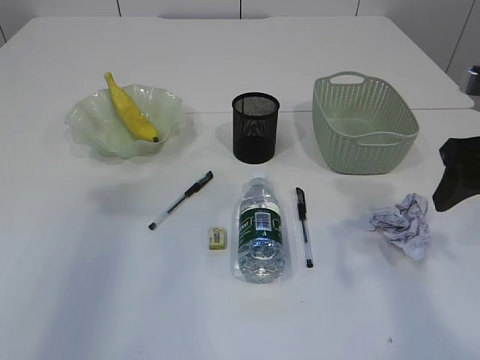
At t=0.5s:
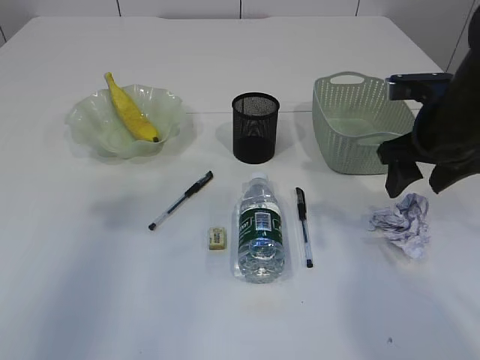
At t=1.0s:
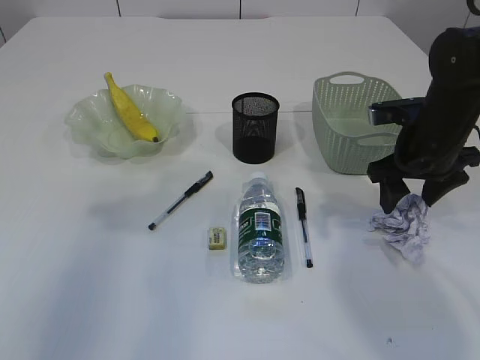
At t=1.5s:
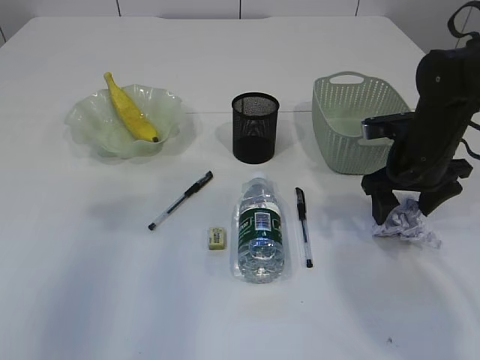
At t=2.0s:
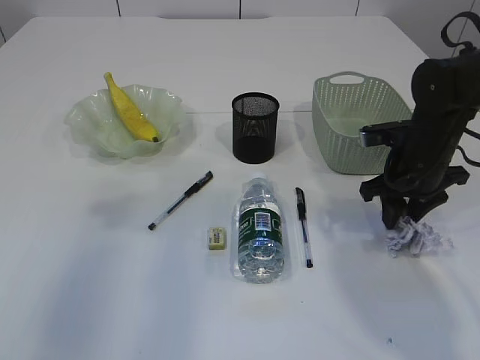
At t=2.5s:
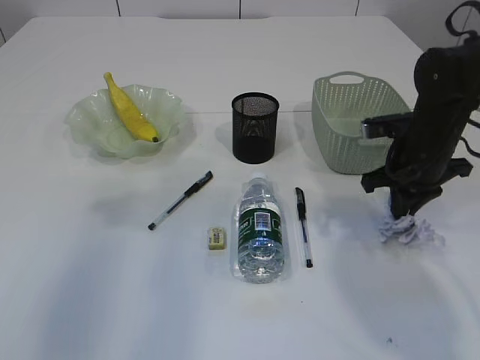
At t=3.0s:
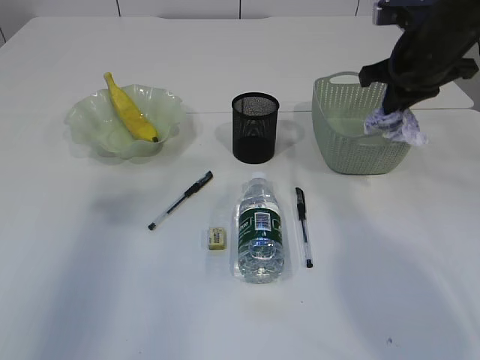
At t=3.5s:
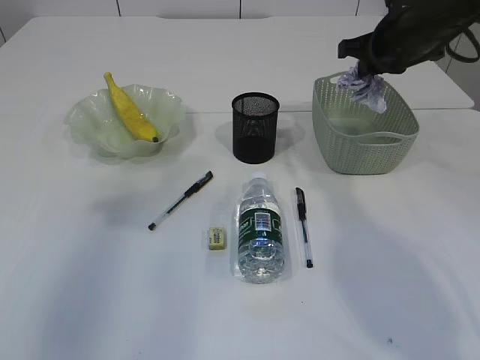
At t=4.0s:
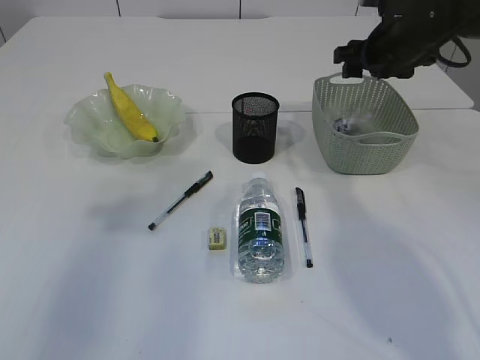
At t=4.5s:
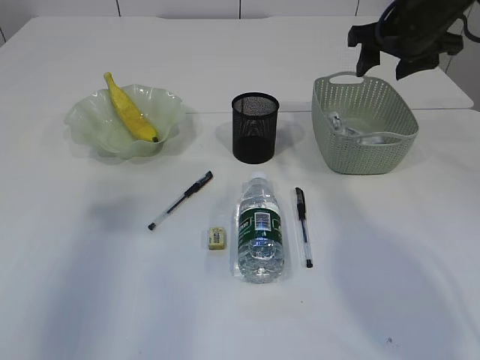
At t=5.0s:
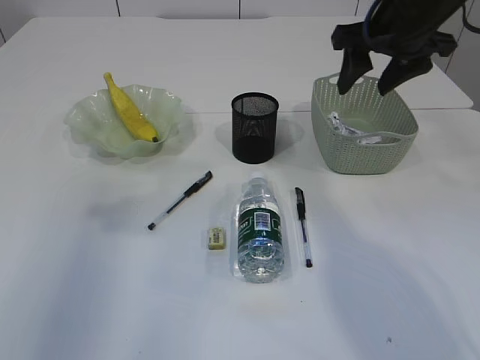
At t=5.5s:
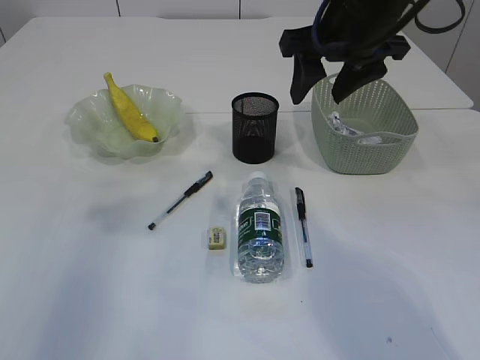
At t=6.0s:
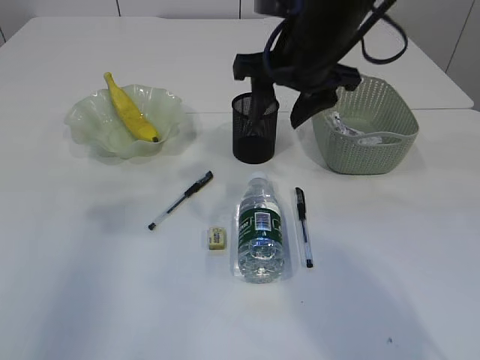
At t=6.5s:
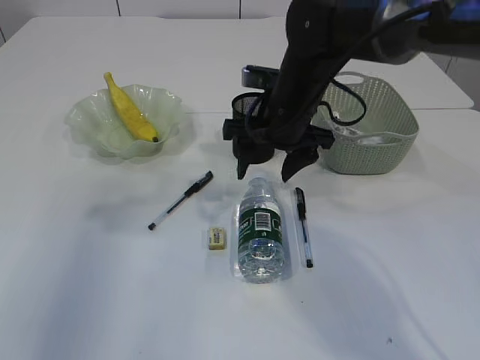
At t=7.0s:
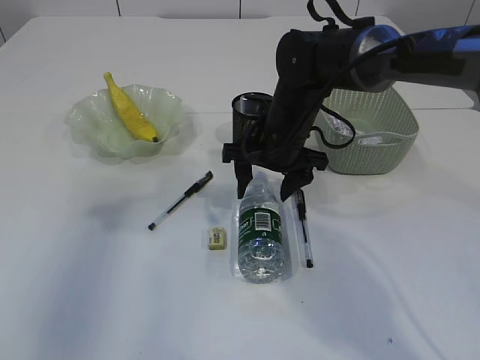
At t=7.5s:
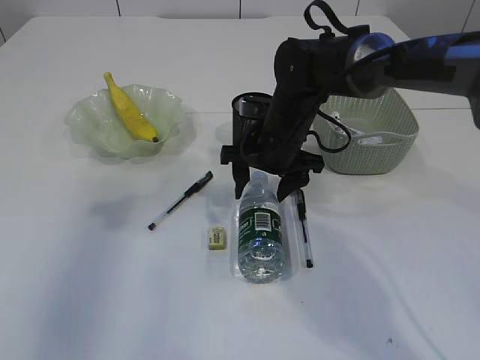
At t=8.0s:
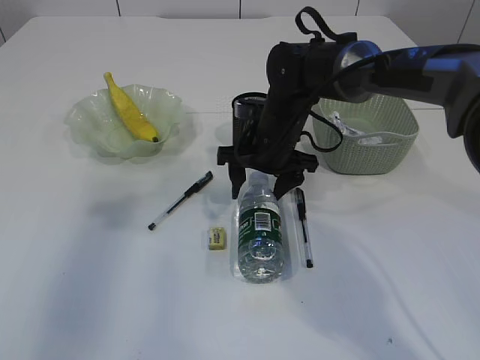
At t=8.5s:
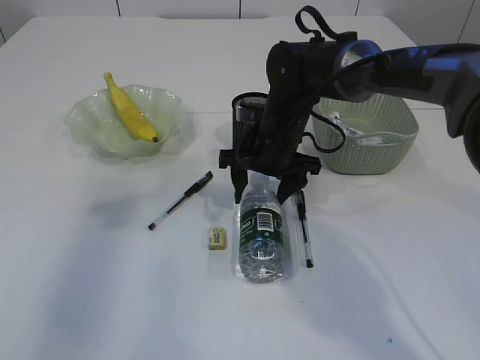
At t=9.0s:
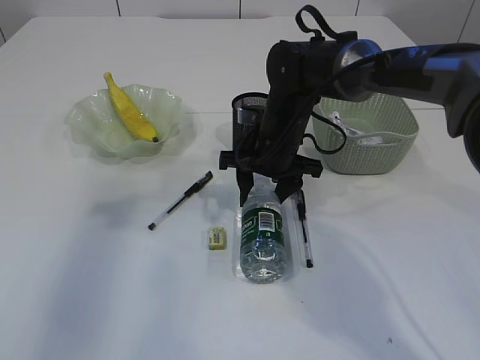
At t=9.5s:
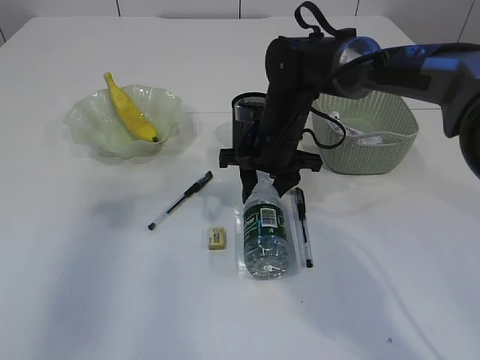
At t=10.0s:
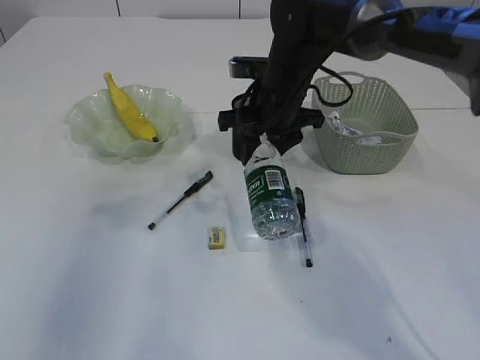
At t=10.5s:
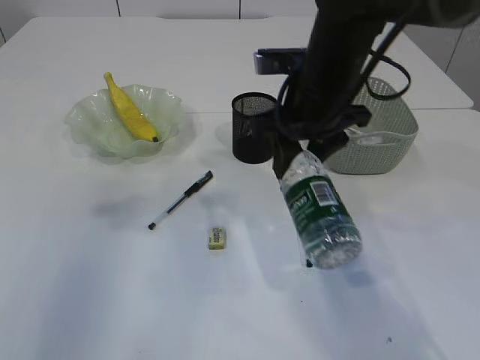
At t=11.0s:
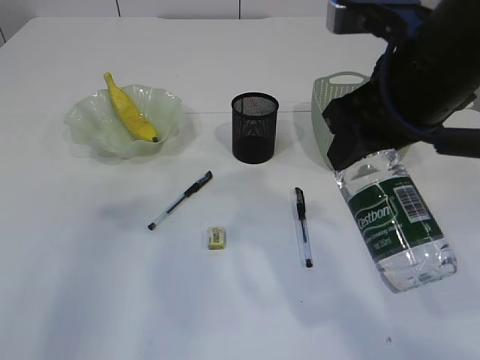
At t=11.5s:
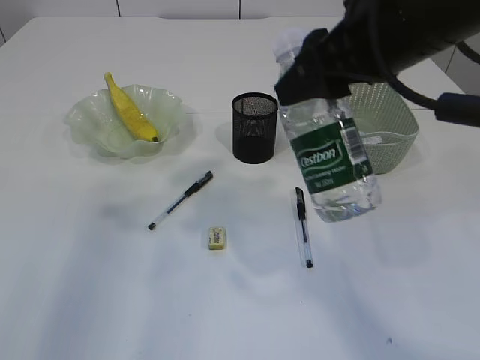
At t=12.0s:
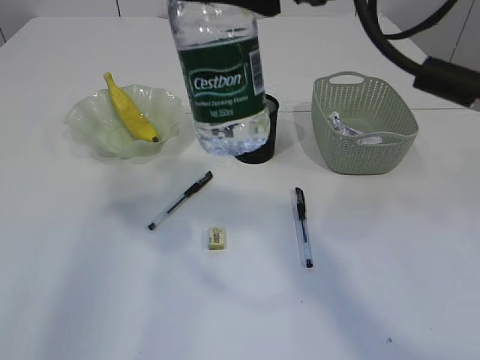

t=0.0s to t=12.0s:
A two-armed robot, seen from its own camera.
Step, t=0.0s to t=2.5s: Pick up the waste paper.
Step, t=3.0s to t=4.5s: Place the waste paper in the basket.
Step, t=5.0s to t=10.0s: Pick up the bottle with the right arm.
t=0.0s to t=2.0s: The right gripper shifts approximately 15 cm downward and forward, and closes its fingers.
t=2.0s to t=4.0s: The right gripper moves forward and upward, roughly 15 cm, and closes, then reopens.
t=4.0s to t=6.0s: The right gripper heads to the left and backward, covering roughly 15 cm.
t=6.0s to t=8.0s: The right gripper moves downward, roughly 15 cm.
t=8.0s to t=10.0s: The right gripper travels upward by some 5 cm, and closes up.
t=10.0s to t=12.0s: The right gripper is displaced upward and backward by some 25 cm.

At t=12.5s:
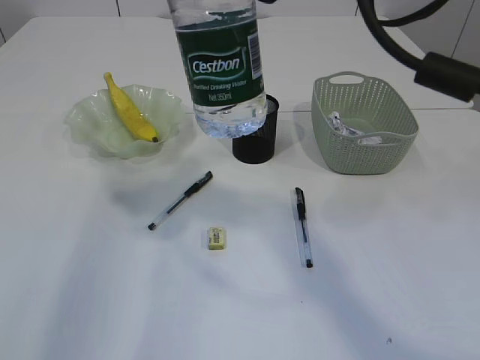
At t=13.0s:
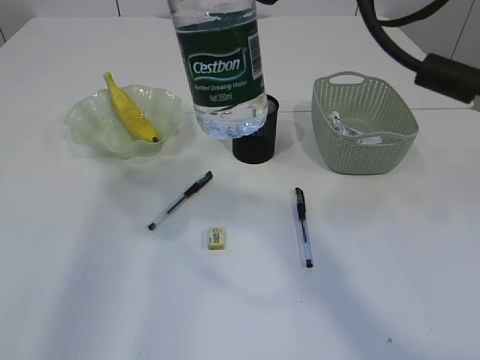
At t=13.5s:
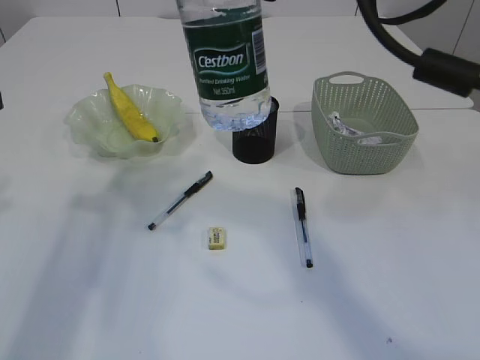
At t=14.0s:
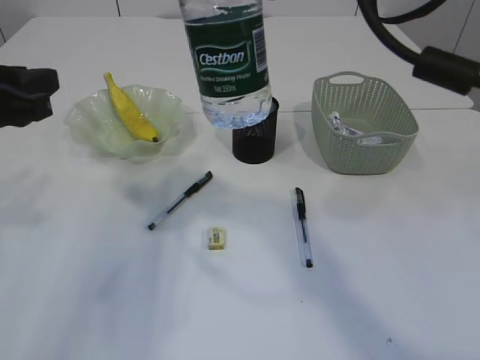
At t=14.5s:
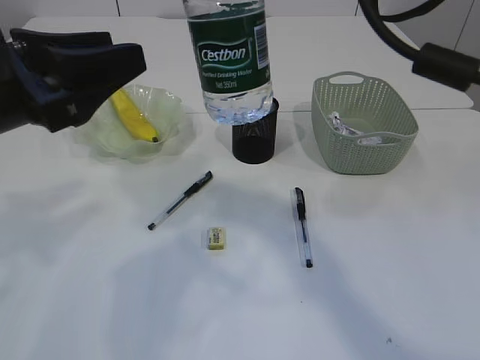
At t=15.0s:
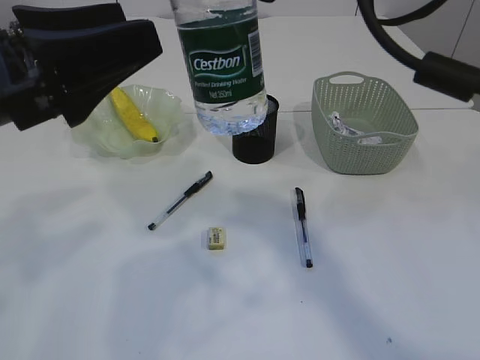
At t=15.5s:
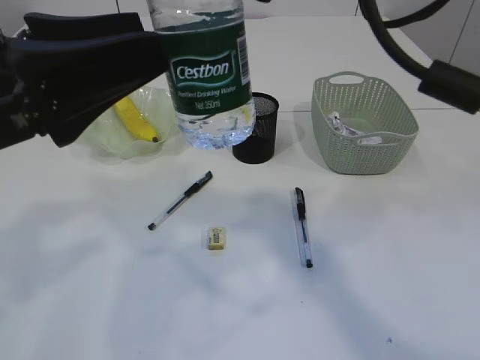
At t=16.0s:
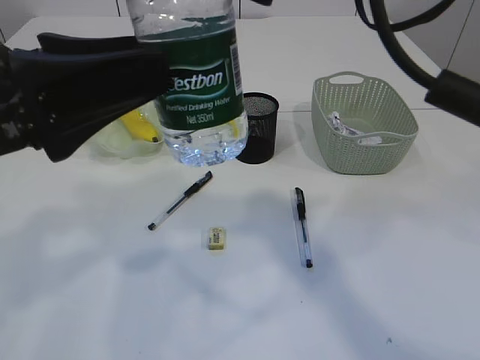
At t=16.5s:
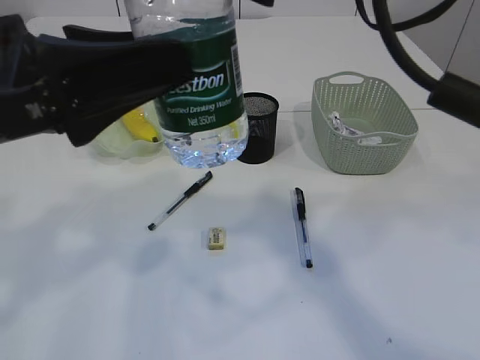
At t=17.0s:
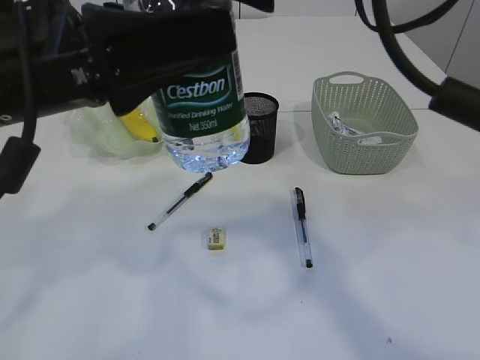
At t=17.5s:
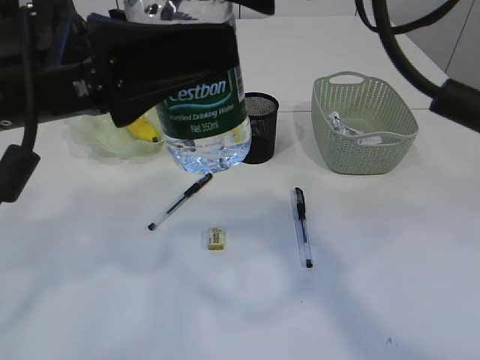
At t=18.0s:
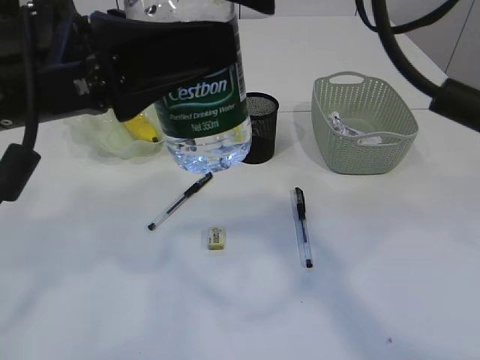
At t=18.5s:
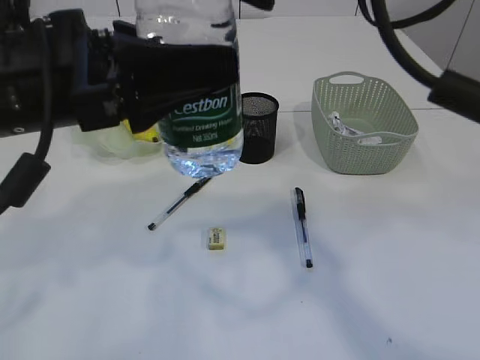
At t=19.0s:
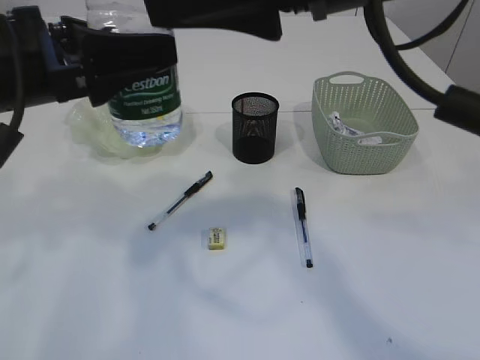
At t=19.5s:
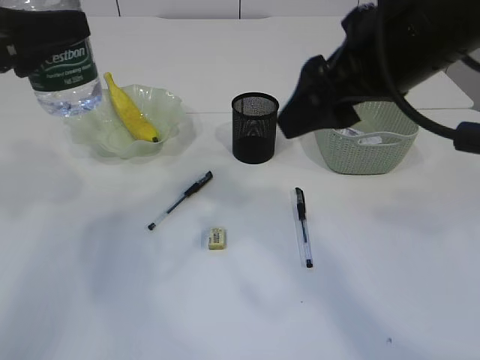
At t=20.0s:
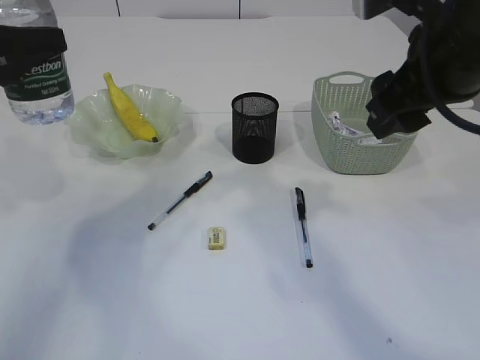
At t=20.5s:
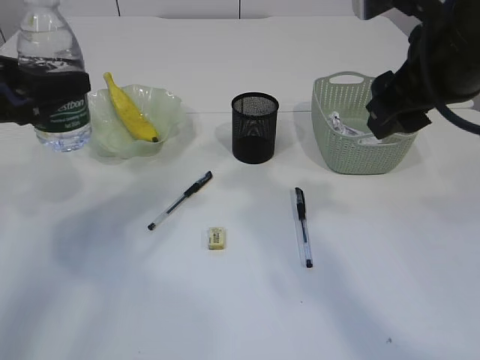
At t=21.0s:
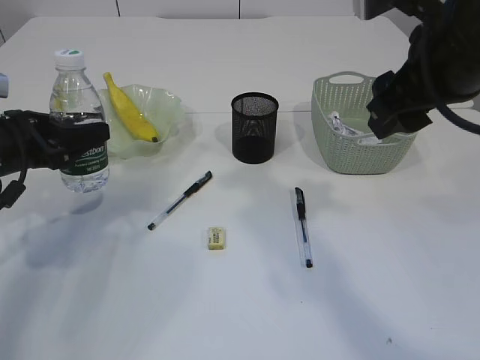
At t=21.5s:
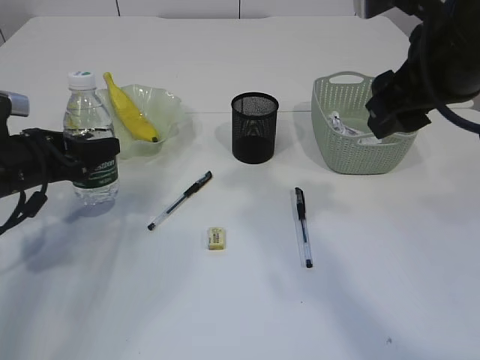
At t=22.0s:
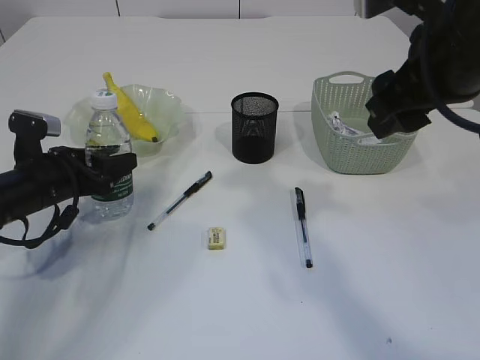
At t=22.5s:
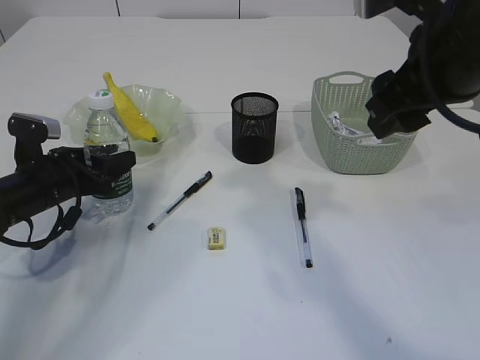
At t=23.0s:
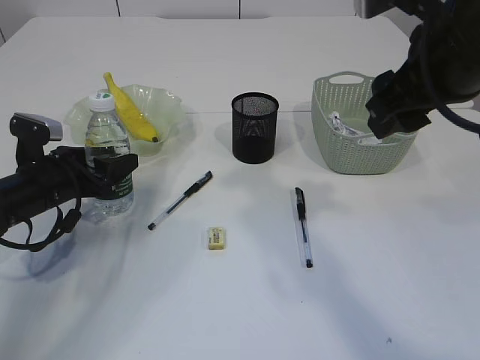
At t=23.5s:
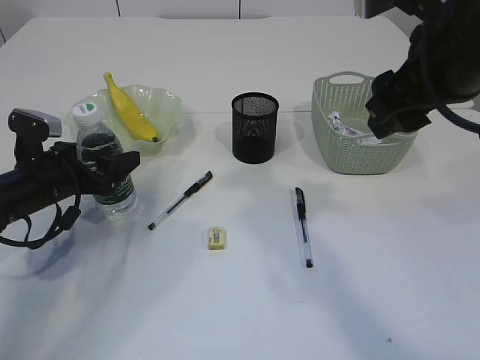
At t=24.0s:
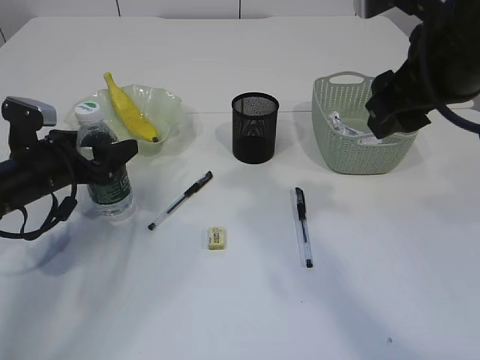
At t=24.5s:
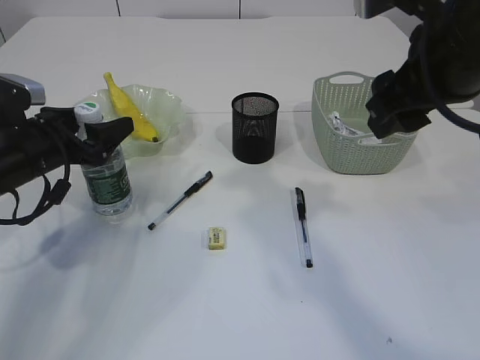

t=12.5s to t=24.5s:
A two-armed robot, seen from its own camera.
Step, t=12.5s to t=19.0s: transfer the bottle to the left arm.
t=12.5s to t=14.5s: The left gripper moves to the right and downward, roughly 10 cm.
t=14.5s to t=16.5s: The left gripper opens.
t=16.5s to t=18.5s: The grippers stay close to where they were, moving slightly.
t=18.5s to t=20.5s: The right gripper shifts roughly 10 cm to the right and downward; the left gripper goes about 20 cm to the left, forward and downward.
t=20.5s to t=22.5s: The left gripper is displaced downward by approximately 15 cm.
t=22.5s to t=24.5s: The grippers make only small movements.

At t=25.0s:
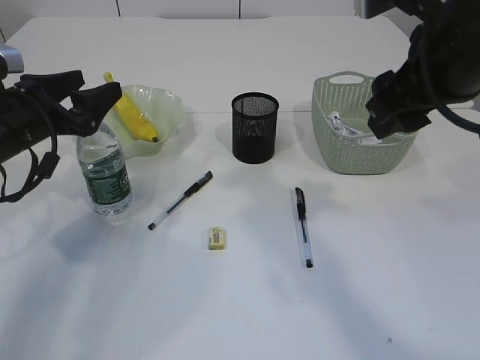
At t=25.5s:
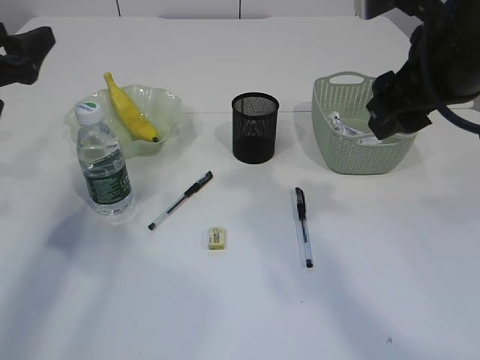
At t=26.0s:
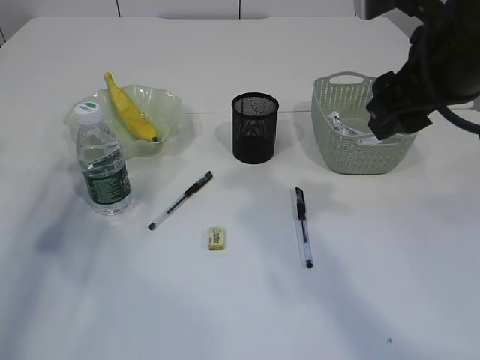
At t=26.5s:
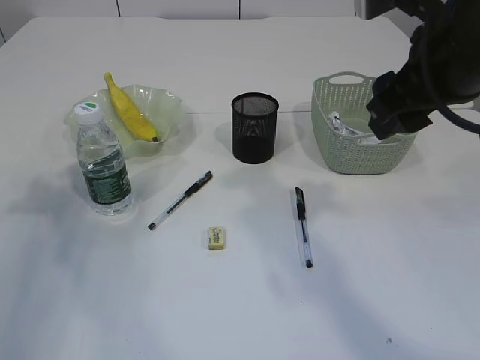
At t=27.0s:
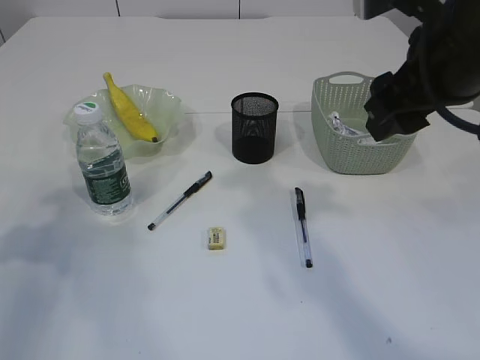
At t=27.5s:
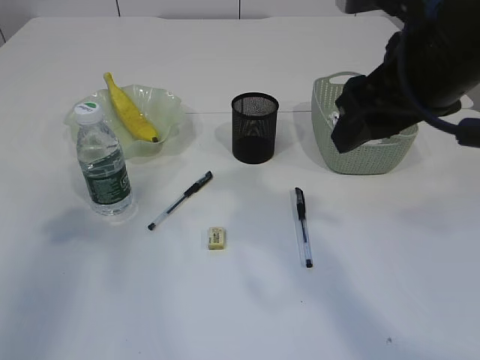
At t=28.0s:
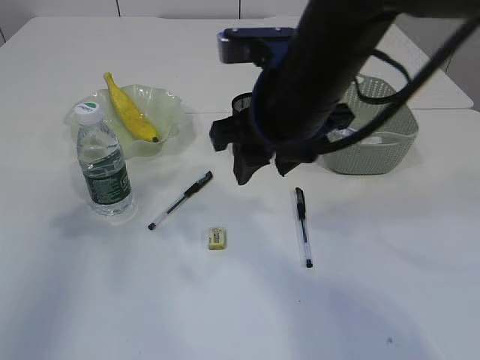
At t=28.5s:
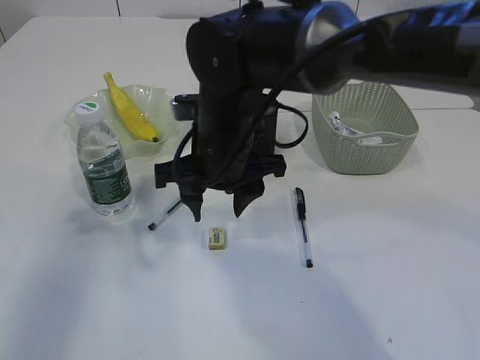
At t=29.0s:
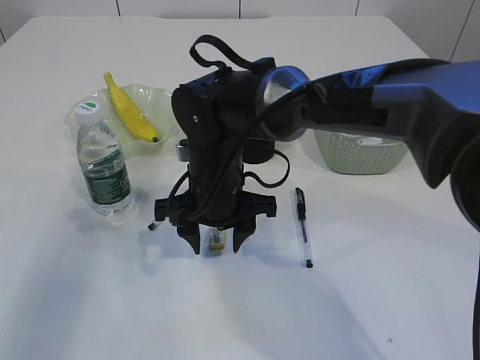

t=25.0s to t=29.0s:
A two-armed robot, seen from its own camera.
t=25.0s to t=27.0s: The left gripper travels backward, to the left and upward by approximately 15 cm.
t=27.0s to t=29.0s: The left gripper shifts some 5 cm upward; the right gripper goes roughly 25 cm to the left and downward.
